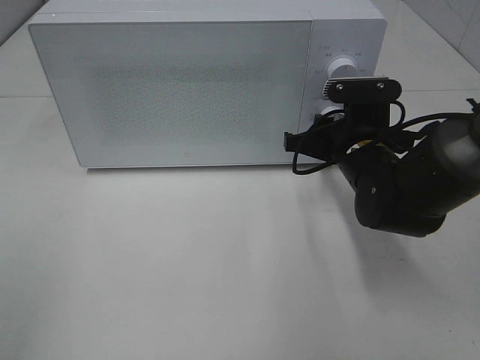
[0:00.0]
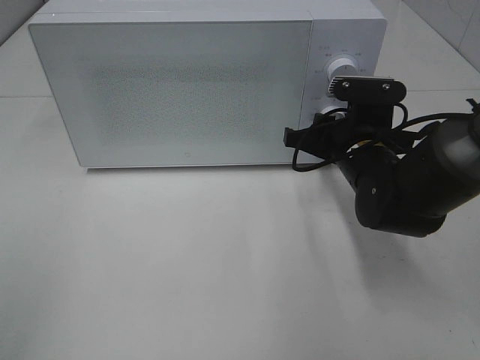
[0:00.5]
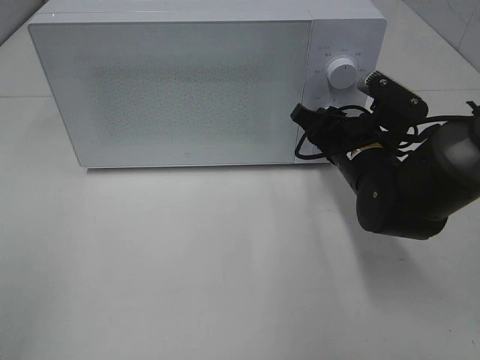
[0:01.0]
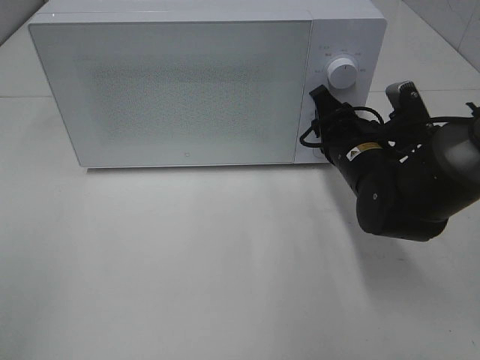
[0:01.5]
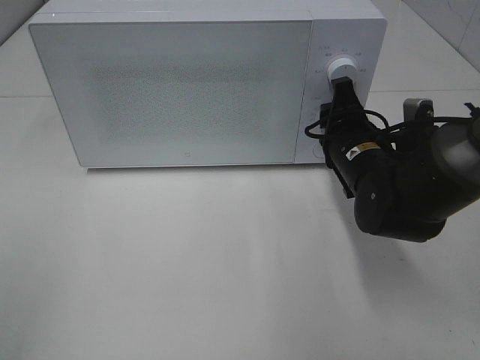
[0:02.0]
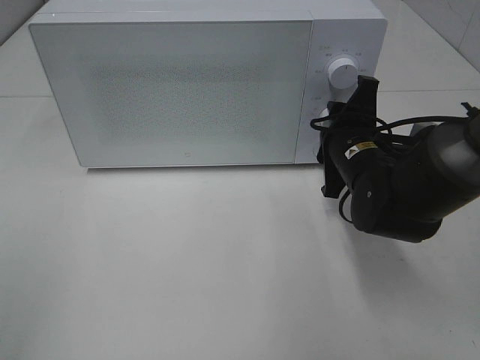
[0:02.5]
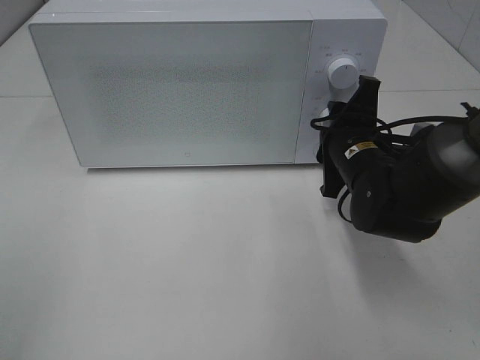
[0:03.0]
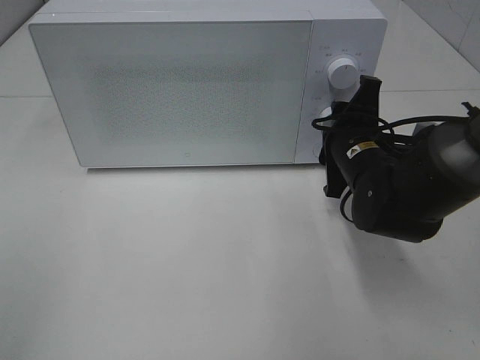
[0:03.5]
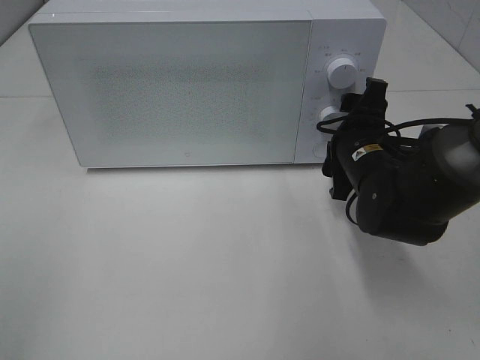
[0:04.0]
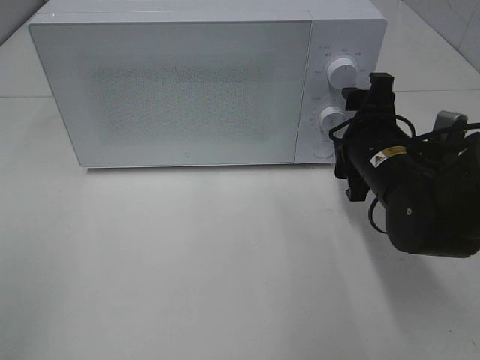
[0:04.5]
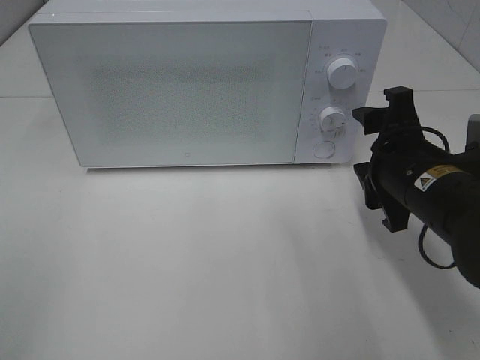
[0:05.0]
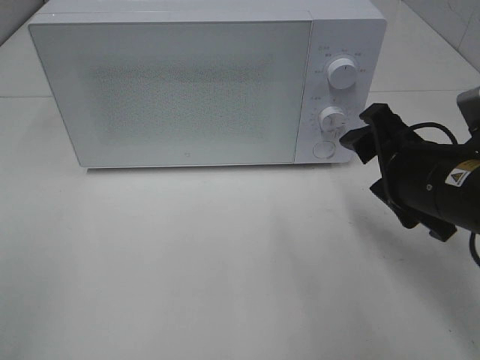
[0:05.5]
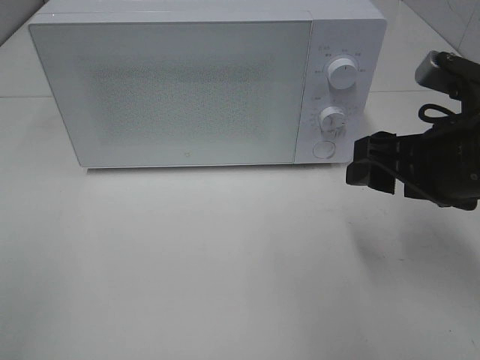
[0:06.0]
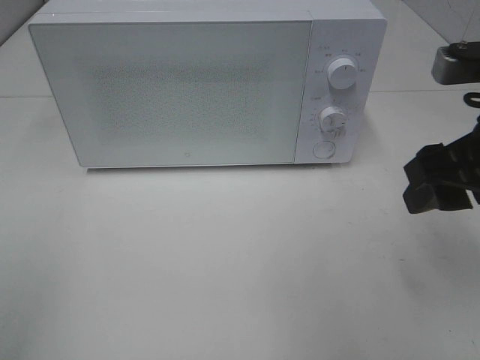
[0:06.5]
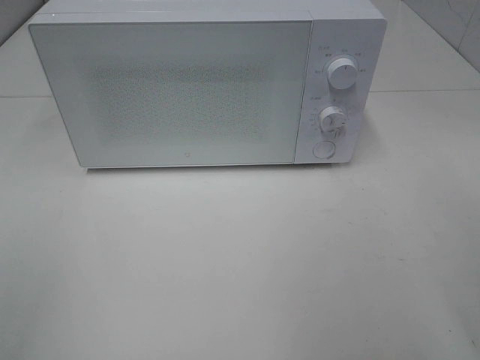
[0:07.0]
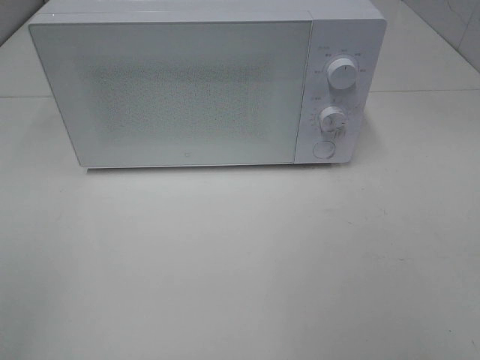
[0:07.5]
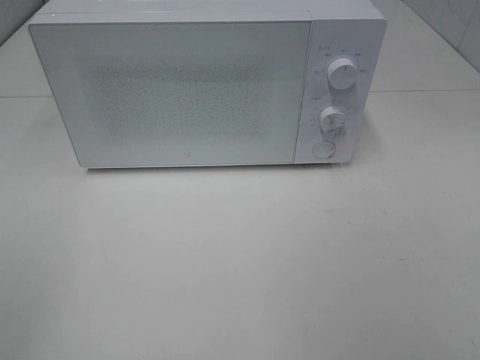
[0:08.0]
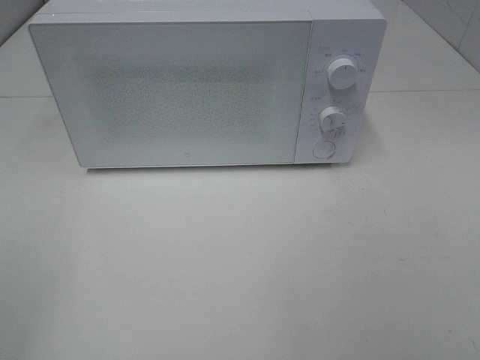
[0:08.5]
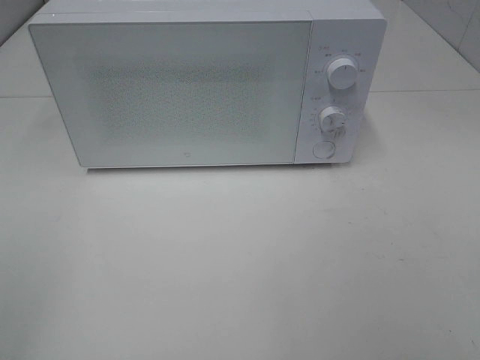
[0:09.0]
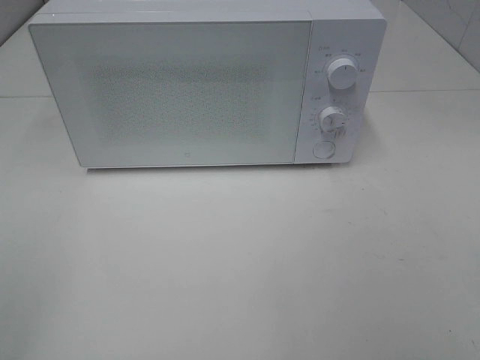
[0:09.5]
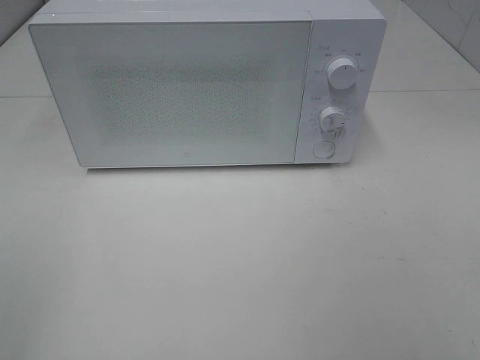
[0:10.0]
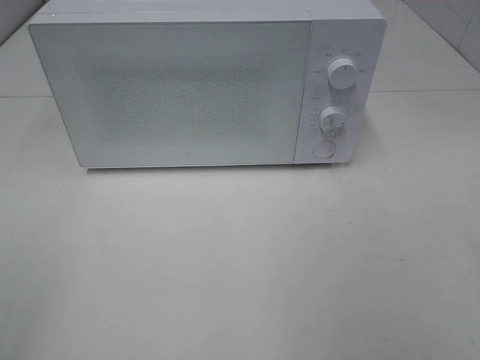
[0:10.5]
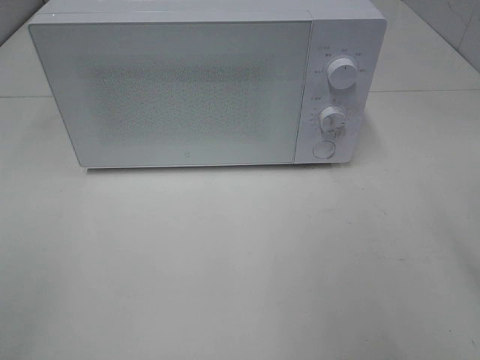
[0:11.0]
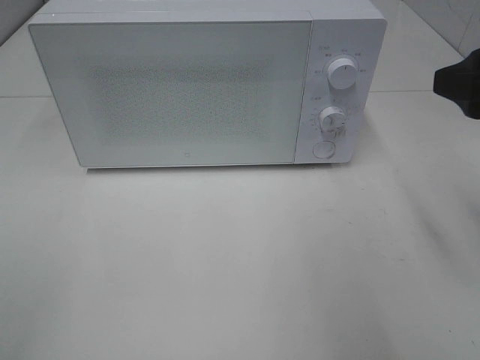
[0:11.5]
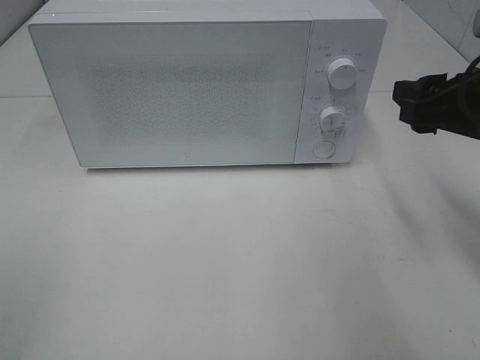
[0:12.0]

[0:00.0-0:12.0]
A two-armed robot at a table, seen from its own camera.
Task of the whole recording: Heat Sandwich.
Step, 0:00.0 to 0:04.5: Right hand: twist timer button.
0:04.0 to 0:06.0: The right gripper is displaced backward and upward by approximately 15 cm.
0:06.0 to 0:08.0: The right gripper heads backward, upward and to the right, covering some 30 cm.
0:10.0 to 0:12.0: The right gripper is displaced forward by some 25 cm.

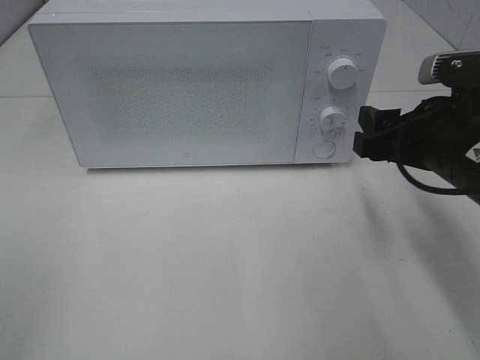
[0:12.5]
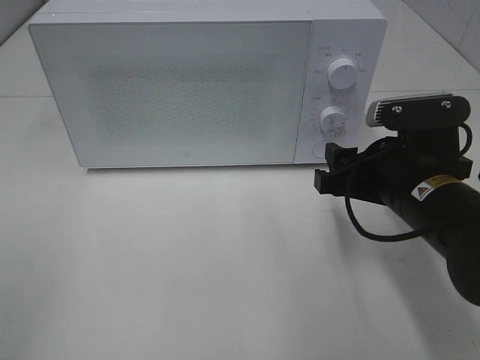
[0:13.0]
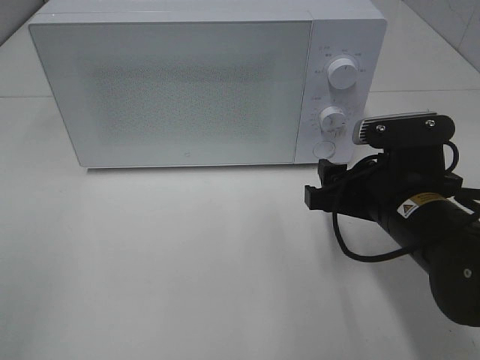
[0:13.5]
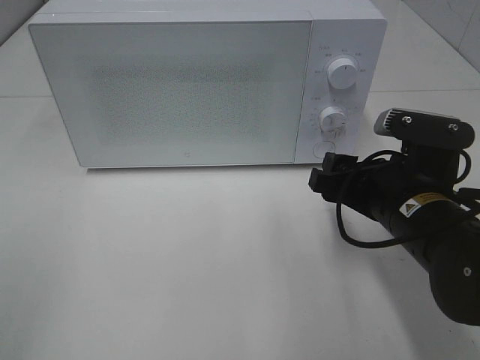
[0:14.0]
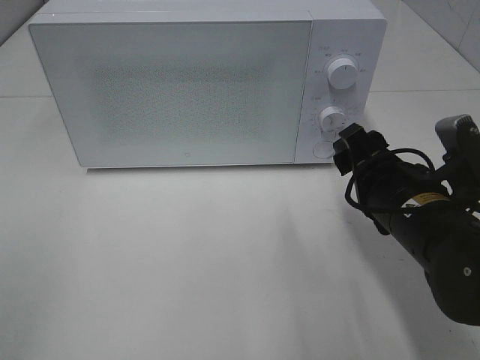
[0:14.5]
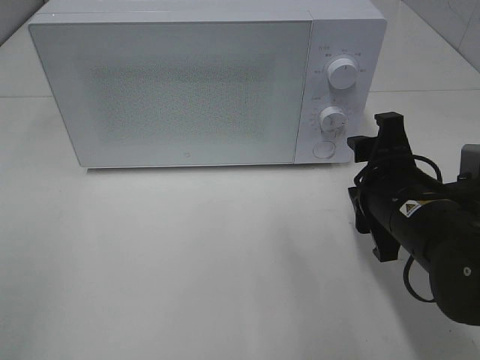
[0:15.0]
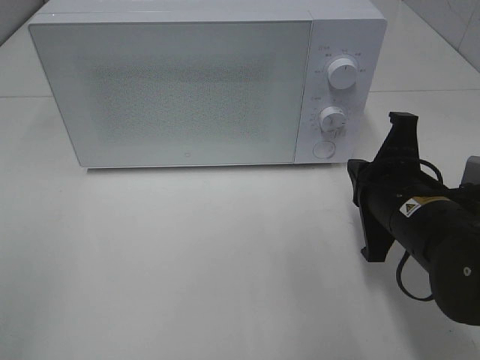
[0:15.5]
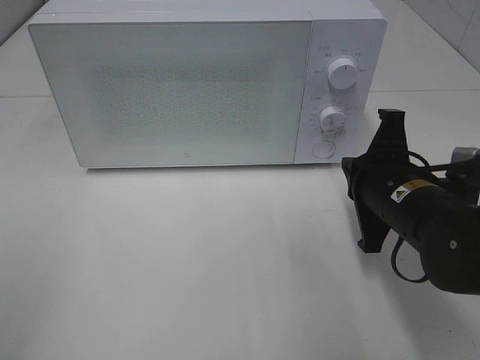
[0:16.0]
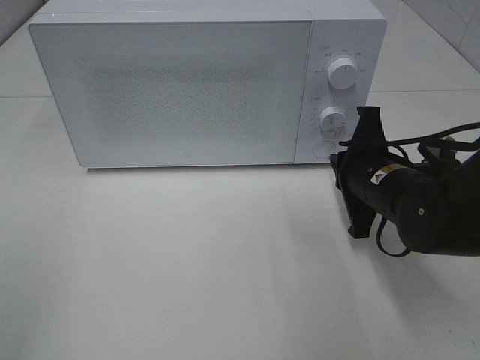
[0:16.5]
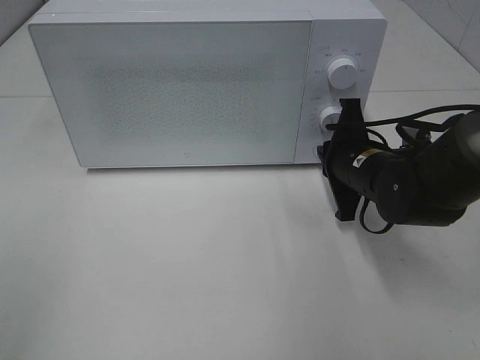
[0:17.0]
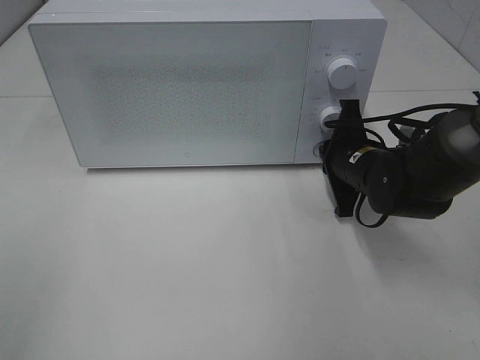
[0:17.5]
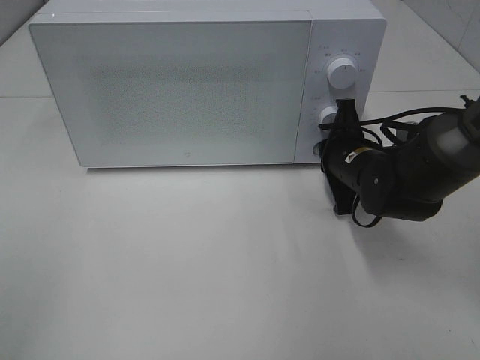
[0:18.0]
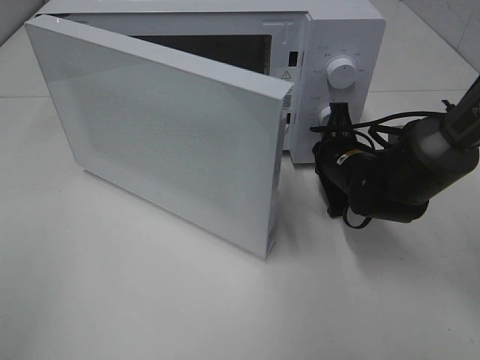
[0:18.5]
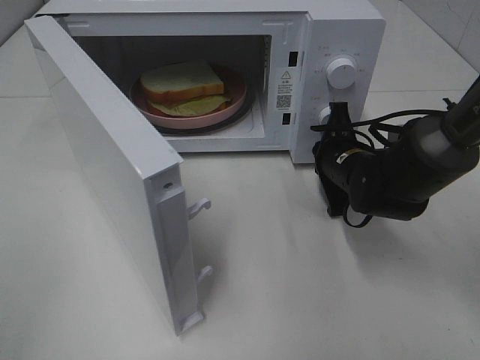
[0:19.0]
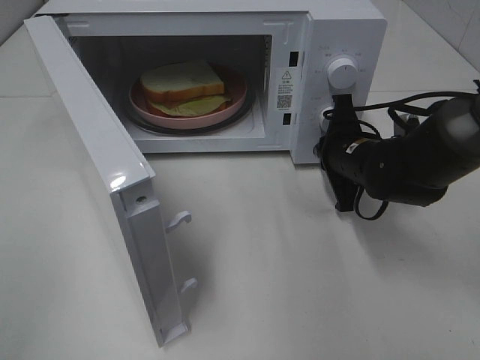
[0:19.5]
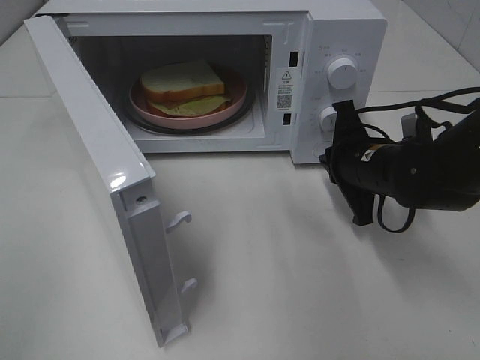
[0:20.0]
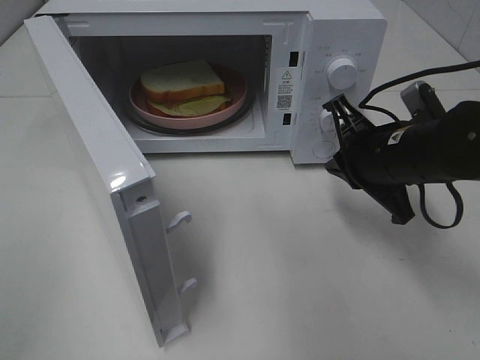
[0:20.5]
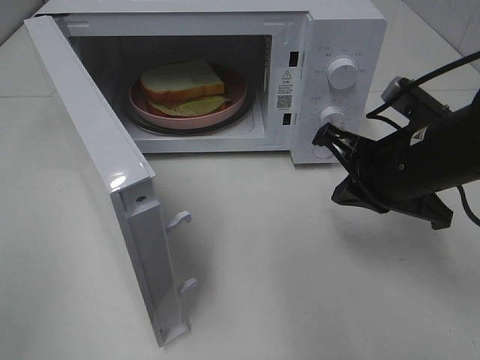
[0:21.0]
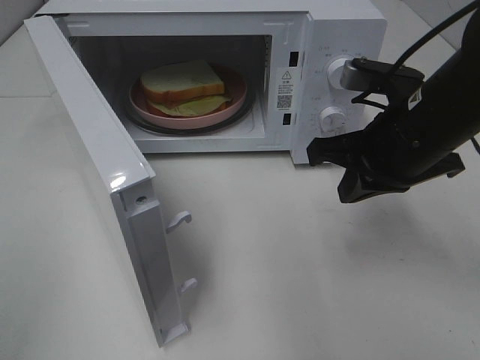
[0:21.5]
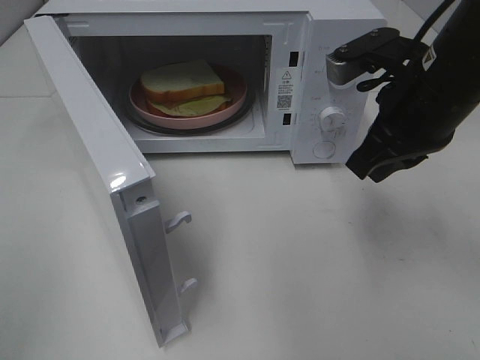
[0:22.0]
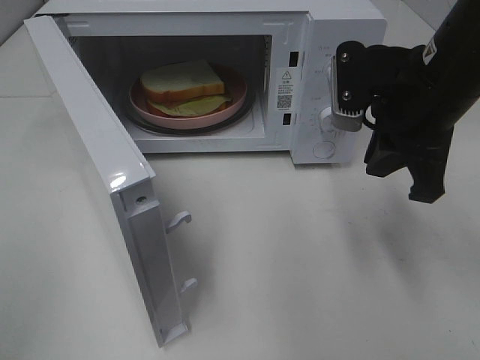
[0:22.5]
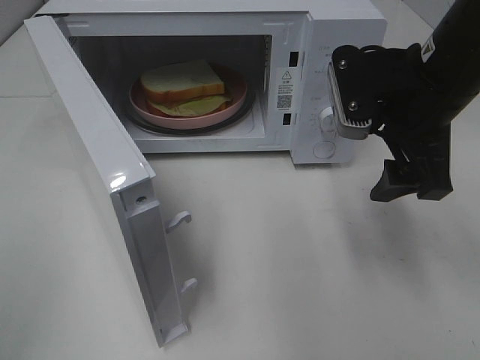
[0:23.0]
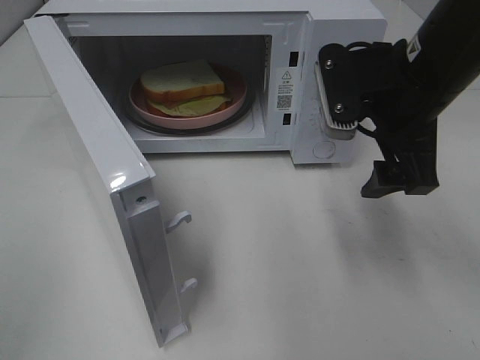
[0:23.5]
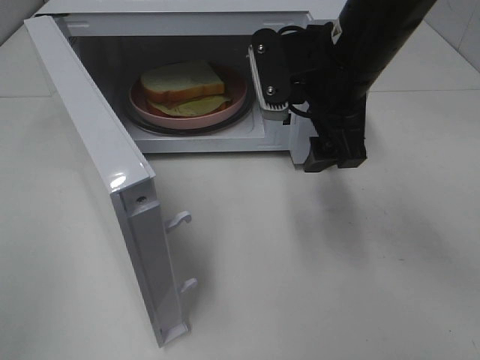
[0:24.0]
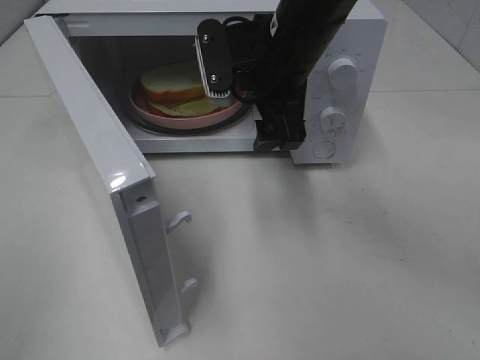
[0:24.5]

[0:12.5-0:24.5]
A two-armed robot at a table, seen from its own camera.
Task of the whole recording: Heat Sandwich.
Step, 0:12.5 to 0:19.5: Right hand: press the switch.
0:12.5 to 0:14.5: The right gripper changes place by about 5 cm.
0:14.5 to 0:16.5: The right gripper travels forward by about 5 cm, and closes up.
0:16.5 to 0:18.5: The right gripper moves forward, approximately 5 cm.
0:18.5 to 0:20.5: The right gripper travels upward and backward by approximately 10 cm.
0:20.5 to 0:22.5: The right gripper heads upward, covering approximately 10 cm.
0:22.5 to 0:24.5: The right gripper moves to the left and forward, about 15 cm, and opens up.

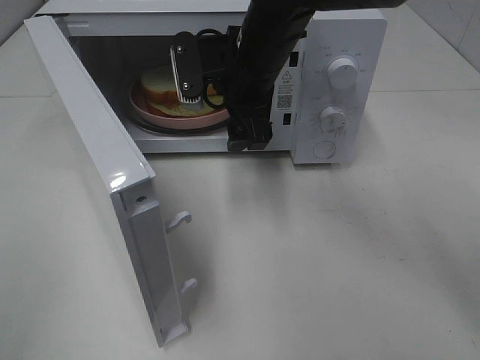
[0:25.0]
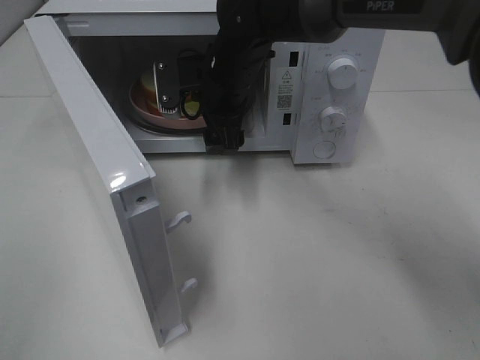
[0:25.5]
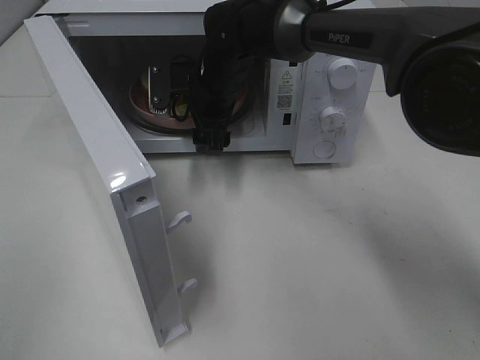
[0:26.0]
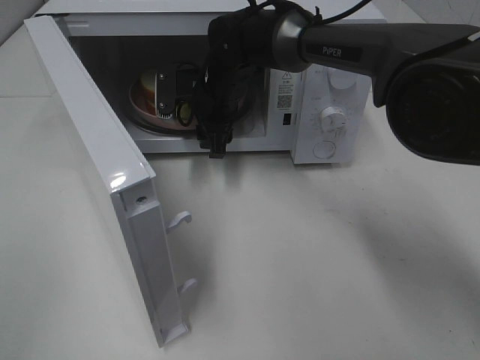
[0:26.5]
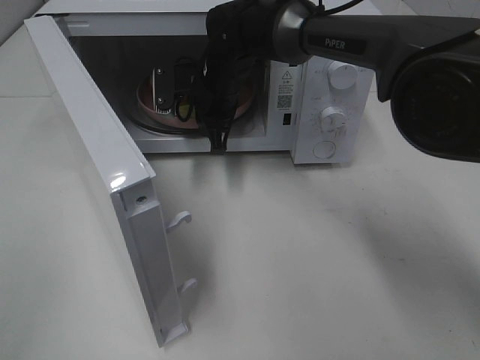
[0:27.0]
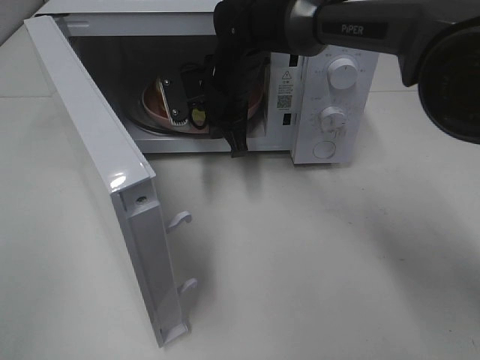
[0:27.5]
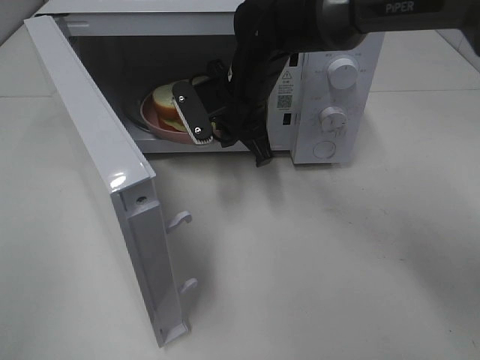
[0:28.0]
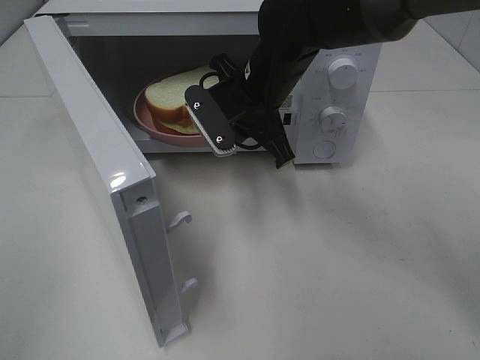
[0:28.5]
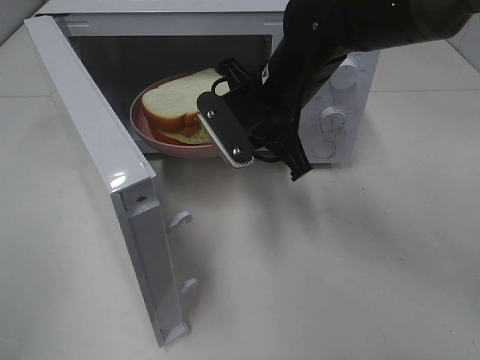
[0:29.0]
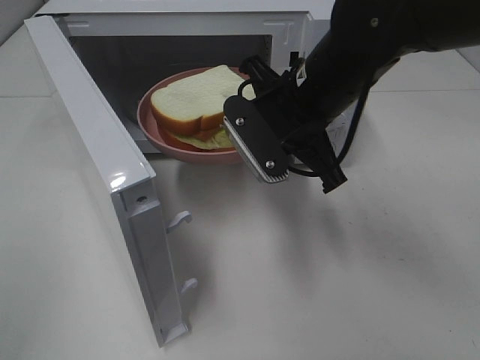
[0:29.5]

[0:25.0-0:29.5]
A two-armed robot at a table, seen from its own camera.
Task of the whole recording: Heat Sandwich.
0:25.0 to 0:27.0: The right gripper goes roughly 10 cm forward and downward, and closes.
0:27.0 to 0:29.5: The right gripper travels backward, to the right and upward by some 20 cm.
